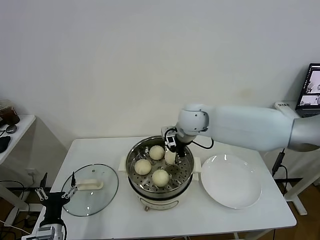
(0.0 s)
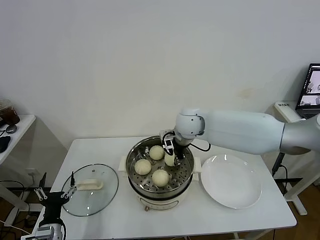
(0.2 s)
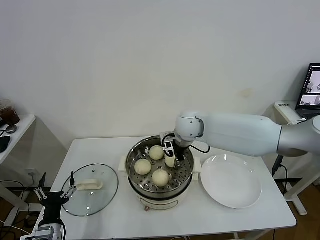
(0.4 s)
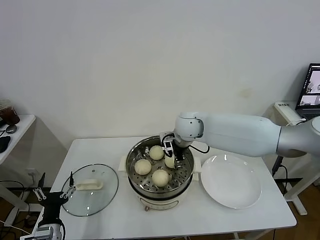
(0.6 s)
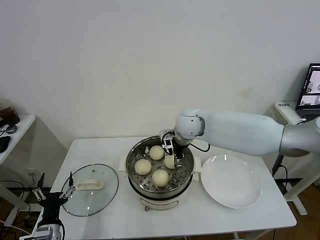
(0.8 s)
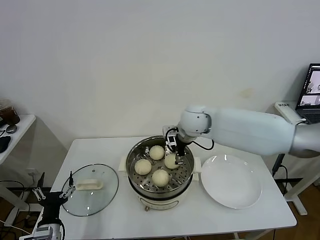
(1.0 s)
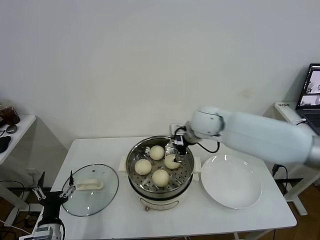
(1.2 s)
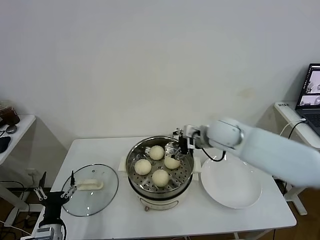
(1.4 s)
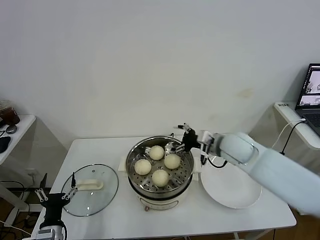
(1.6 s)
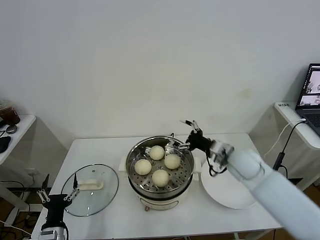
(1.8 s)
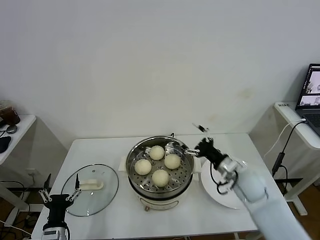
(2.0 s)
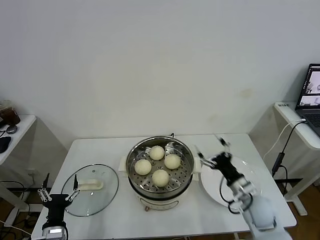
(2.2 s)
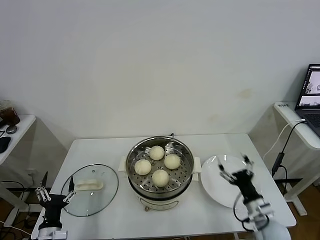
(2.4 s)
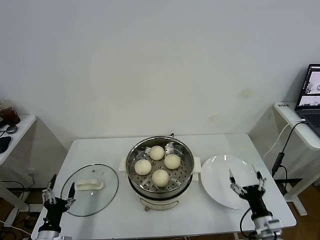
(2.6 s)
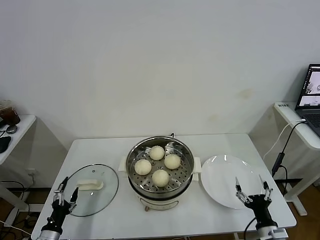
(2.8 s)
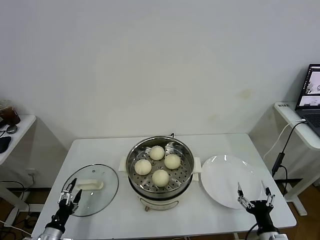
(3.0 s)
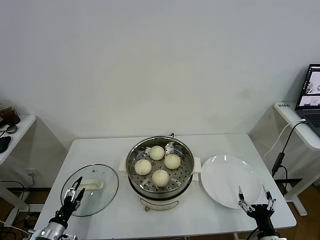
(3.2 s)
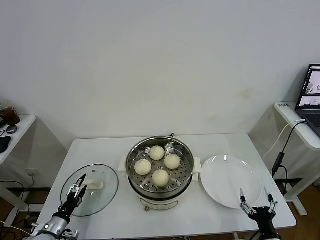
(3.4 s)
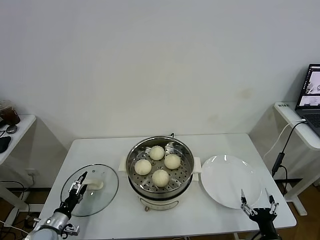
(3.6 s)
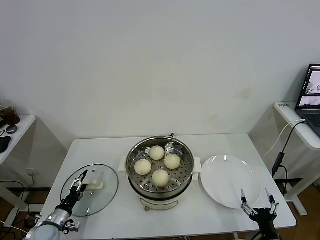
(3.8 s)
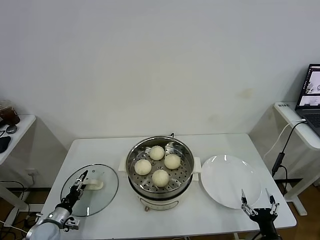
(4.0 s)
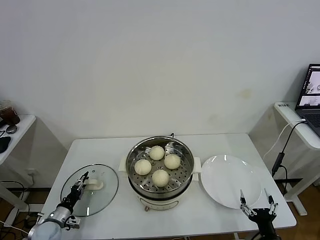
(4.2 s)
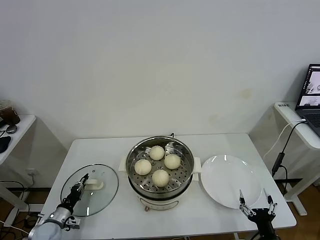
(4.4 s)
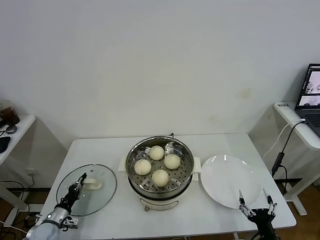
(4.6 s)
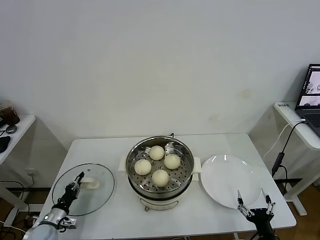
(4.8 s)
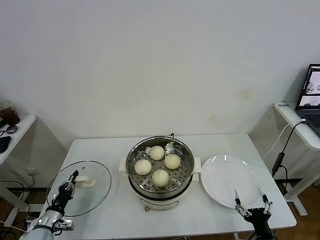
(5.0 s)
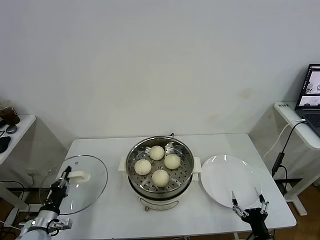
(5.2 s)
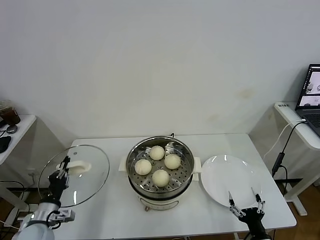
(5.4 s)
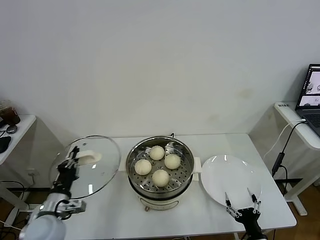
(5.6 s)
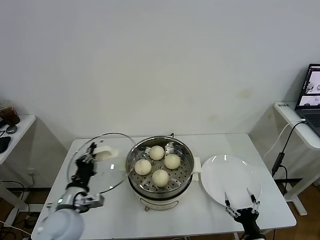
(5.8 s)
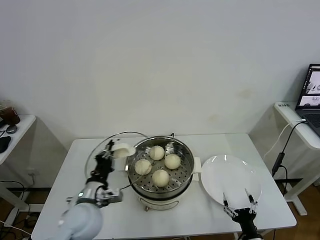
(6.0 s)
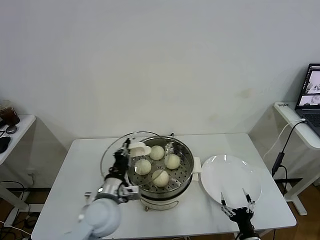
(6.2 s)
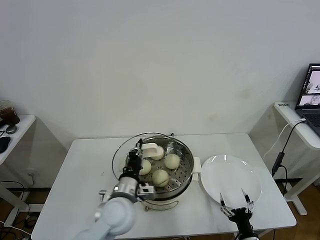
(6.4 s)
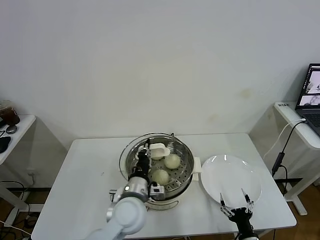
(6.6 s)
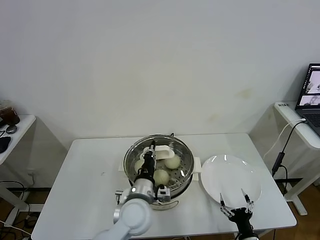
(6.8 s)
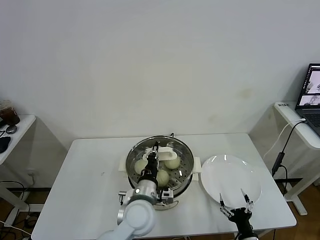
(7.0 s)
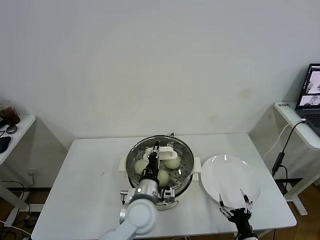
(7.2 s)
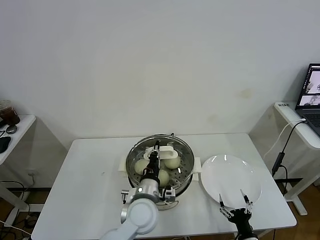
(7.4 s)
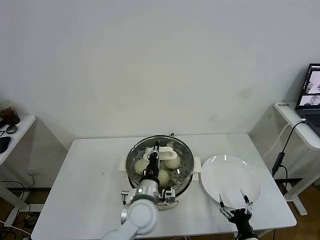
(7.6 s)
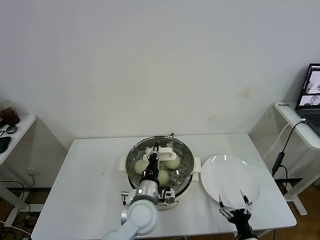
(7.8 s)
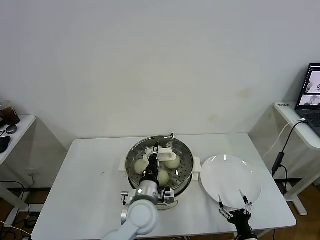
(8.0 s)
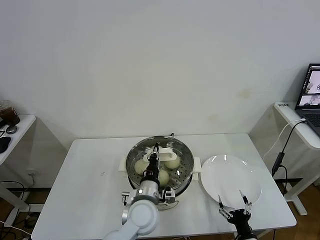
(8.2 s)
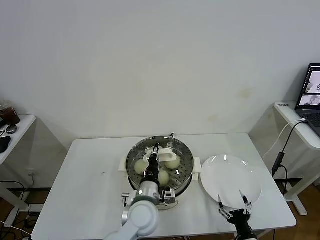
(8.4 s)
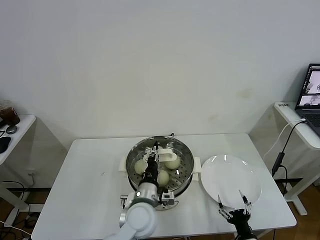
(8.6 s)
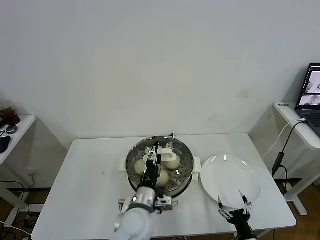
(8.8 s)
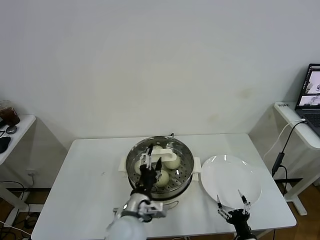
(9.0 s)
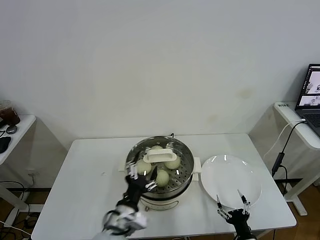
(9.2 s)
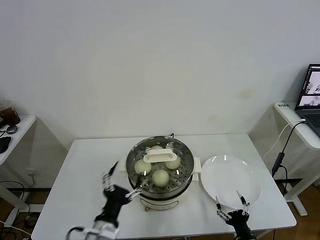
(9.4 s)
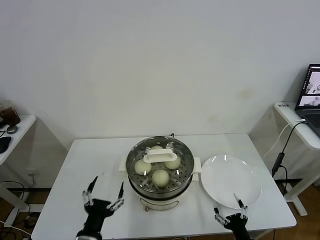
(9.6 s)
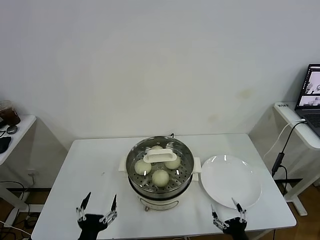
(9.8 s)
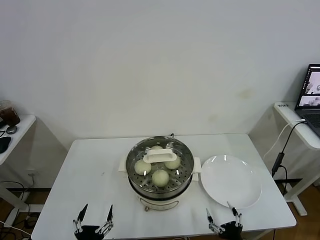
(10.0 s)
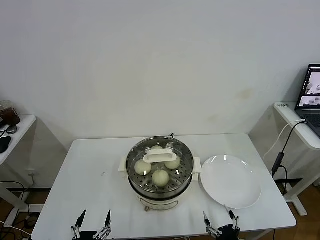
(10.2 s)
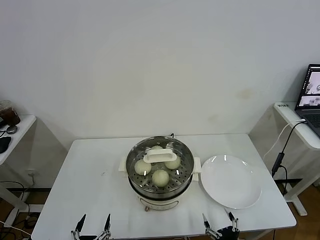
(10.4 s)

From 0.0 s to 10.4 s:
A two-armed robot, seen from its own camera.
Task of the whole recording: take steamed baozi put them in steamer.
Step, from 1.0 s to 4.6 s: Grasp the pot lid with left gripper.
Step, from 4.8 s to 8.8 s: Place the pot lid on the steamer with left gripper.
From 0.0 s to 1.4 s: The right gripper travels to the right by about 10 cm, and opens up.
From 1.4 s to 3.0 s: The left gripper heads to the left and downward, covering roughly 10 cm, while the right gripper is displaced backward, downward and to the right by approximately 40 cm.
From 3.0 s to 4.4 s: The left gripper moves forward, approximately 10 cm, and closes.
From 4.4 s to 6.0 s: The left gripper moves upward and to the right, some 30 cm.
From 6.0 s to 7.4 s: The left gripper goes about 15 cm to the right.
From 7.4 s to 9.0 s: The left gripper opens its fingers.
From 9.0 s to 10.4 s: The left gripper travels backward, to the left and downward by approximately 25 cm. Meanwhile the right gripper heads backward, covering roughly 5 cm.
